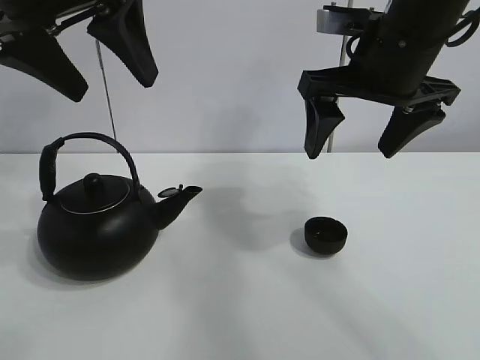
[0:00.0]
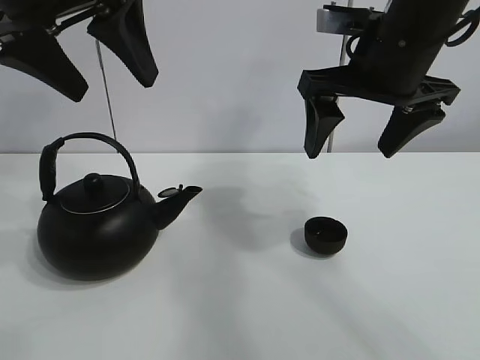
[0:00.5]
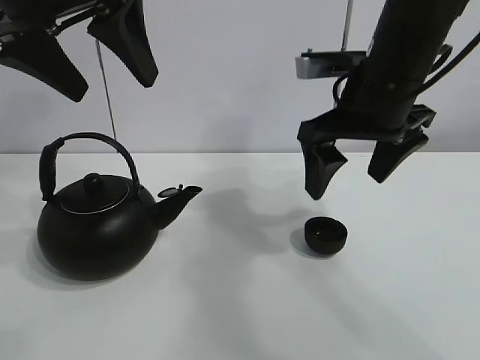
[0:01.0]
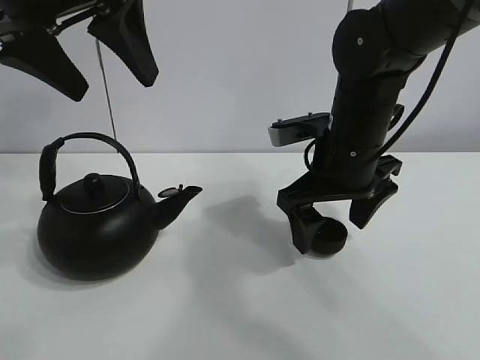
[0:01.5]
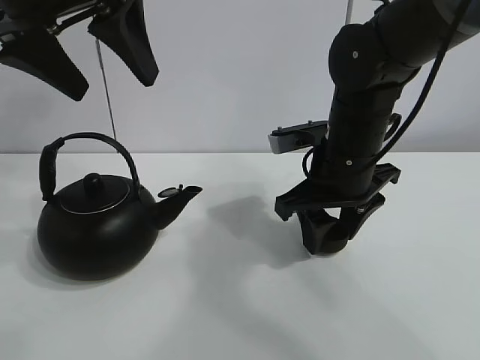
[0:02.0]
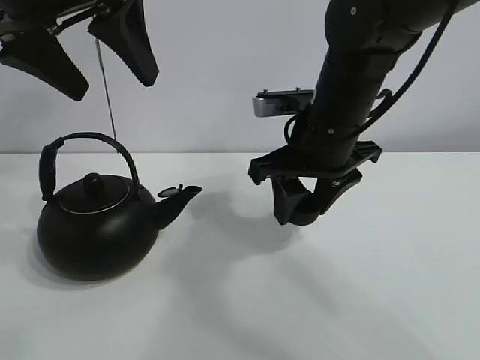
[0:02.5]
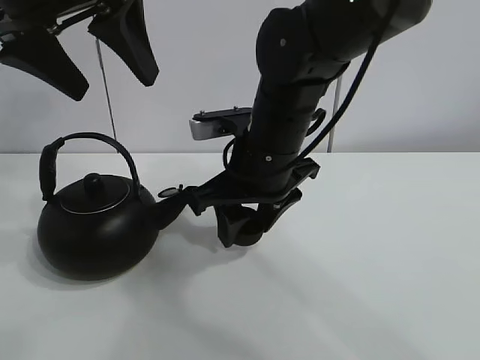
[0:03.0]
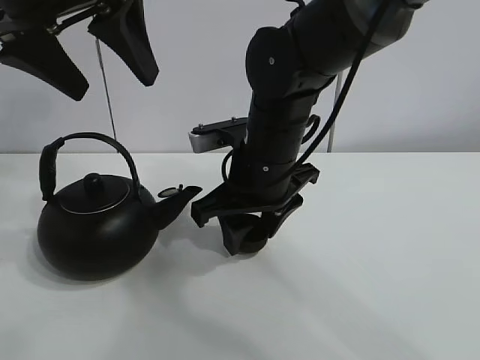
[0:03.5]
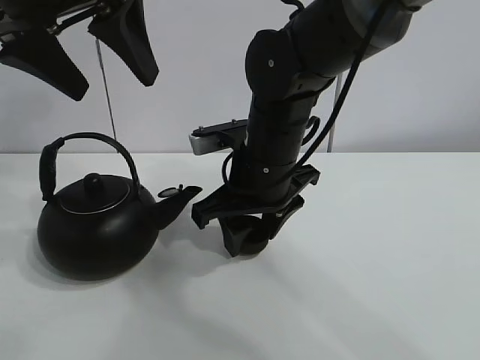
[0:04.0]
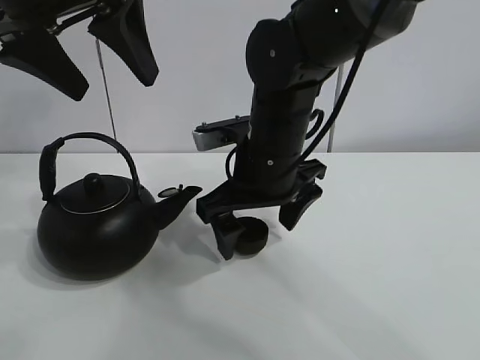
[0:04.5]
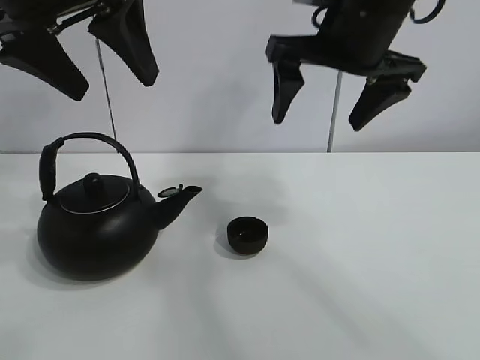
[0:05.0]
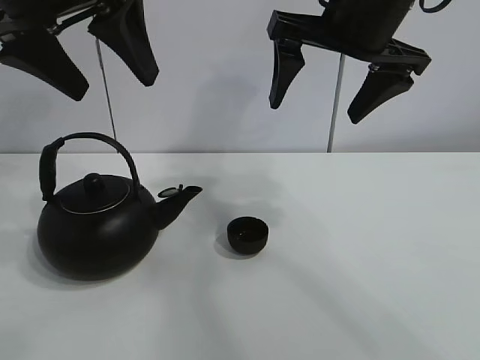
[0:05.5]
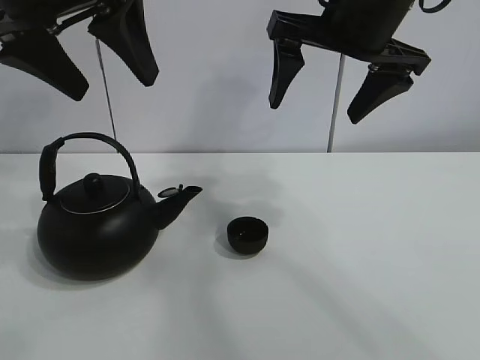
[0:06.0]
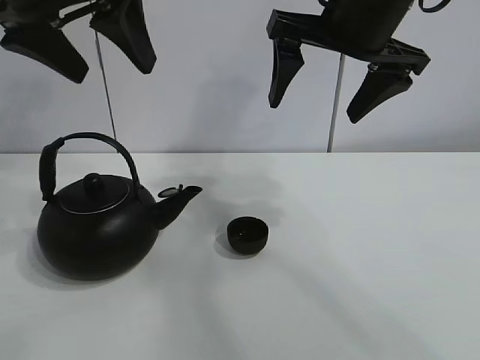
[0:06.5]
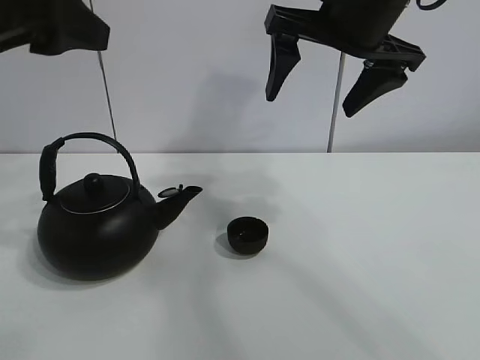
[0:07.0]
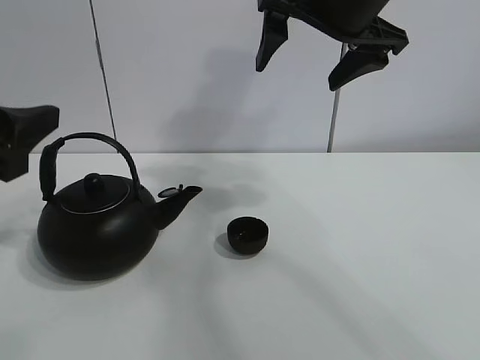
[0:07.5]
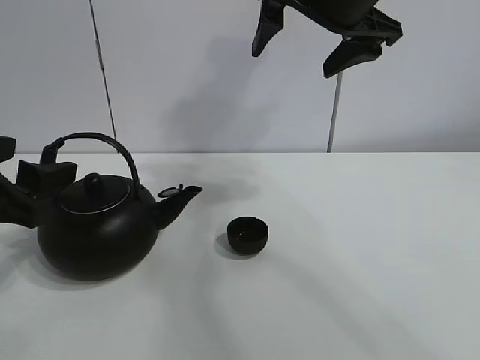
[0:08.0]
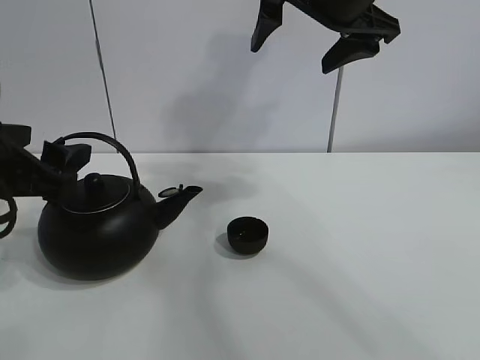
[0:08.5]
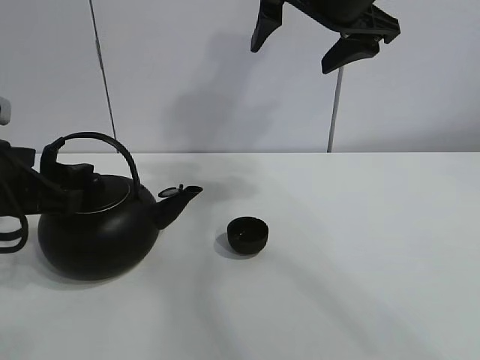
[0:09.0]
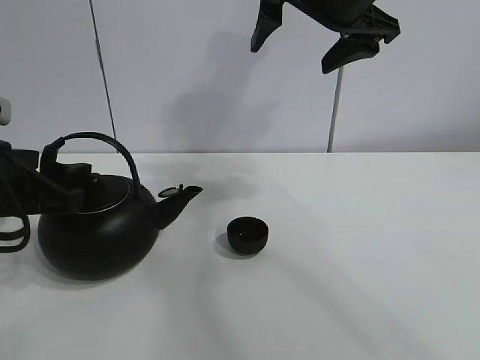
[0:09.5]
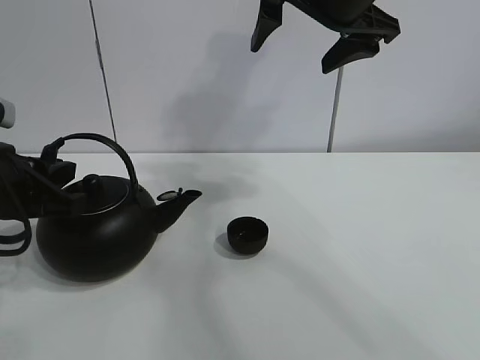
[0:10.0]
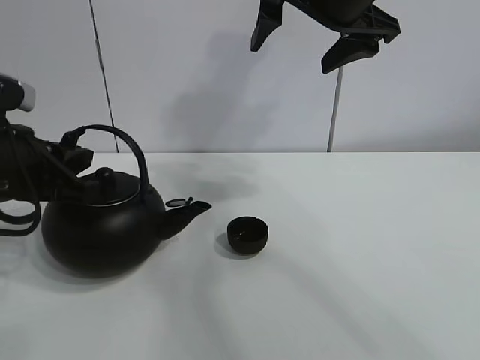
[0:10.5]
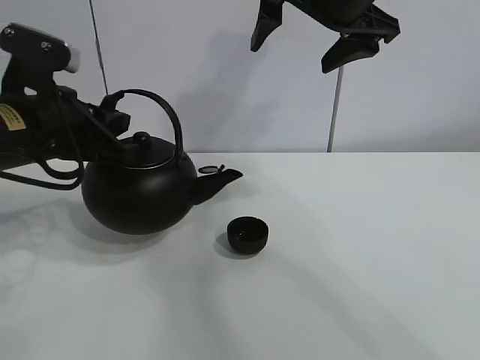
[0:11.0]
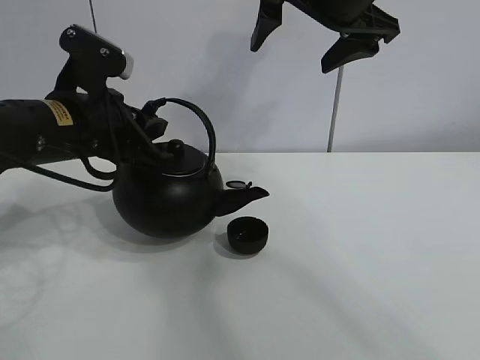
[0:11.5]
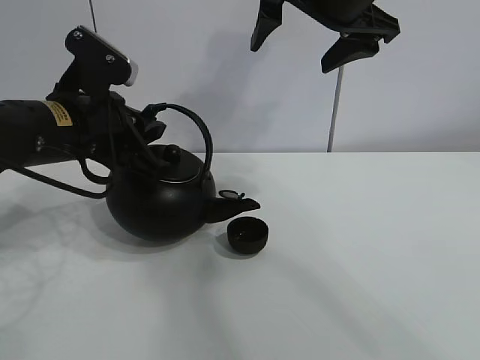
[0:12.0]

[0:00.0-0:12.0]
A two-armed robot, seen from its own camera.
Task of the whole recording: pour tea into the teacup.
Step, 0:00.0 to 0:01.5: Pick up the teacup with the right gripper.
Step, 0:02.0 to 0:04.0: Place the teacup in the center of view with the right gripper.
Step, 0:04.5 to 0:10.0: Pick up the teapot with the left gripper.
0:02.0 to 0:04.0: The right gripper heads to the left, covering roughly 10 cm.
0:04.0 to 0:06.0: The right gripper is displaced upward and to the right by roughly 20 cm, and opens its fingers.
0:06.0 to 0:08.0: The left gripper heads downward and to the left, covering about 20 cm.
0:08.0 to 0:10.0: The left gripper moves approximately 5 cm, and closes its fingers.
0:10.0 to 0:12.0: The left gripper moves to the right and forward, some 10 cm.

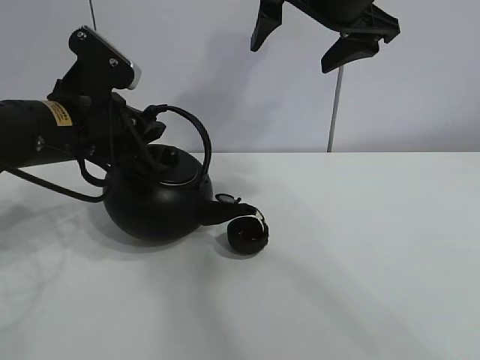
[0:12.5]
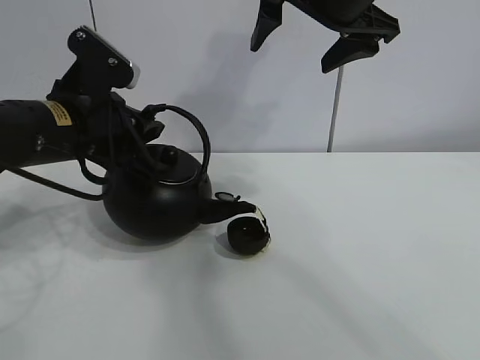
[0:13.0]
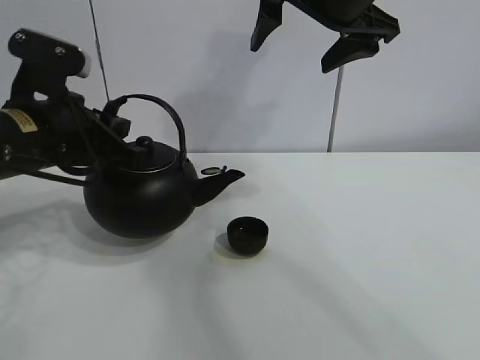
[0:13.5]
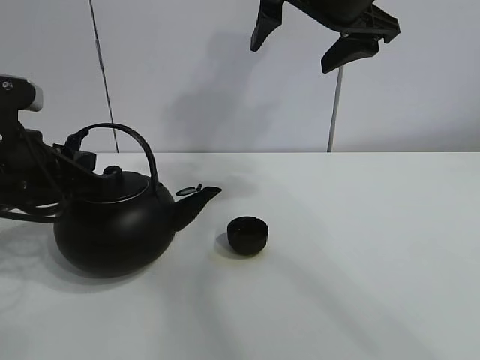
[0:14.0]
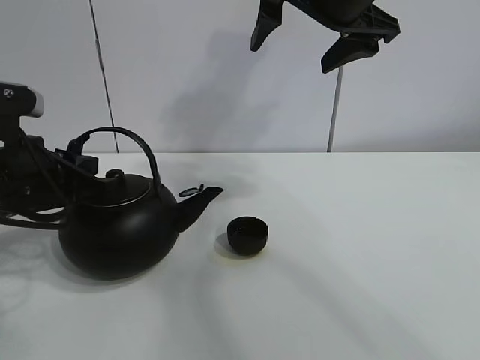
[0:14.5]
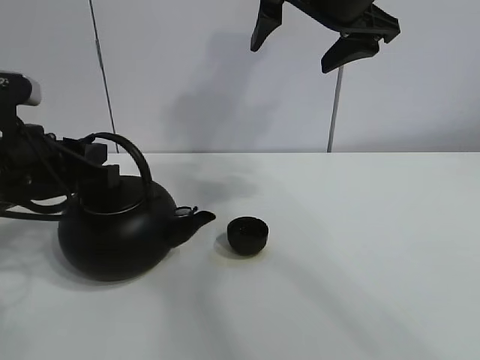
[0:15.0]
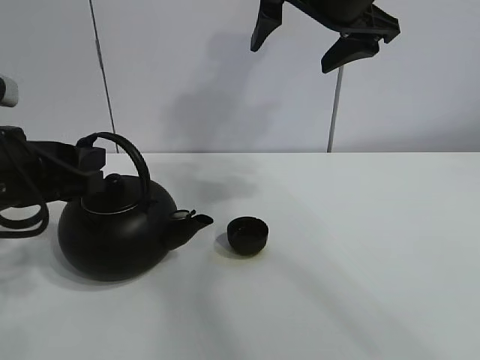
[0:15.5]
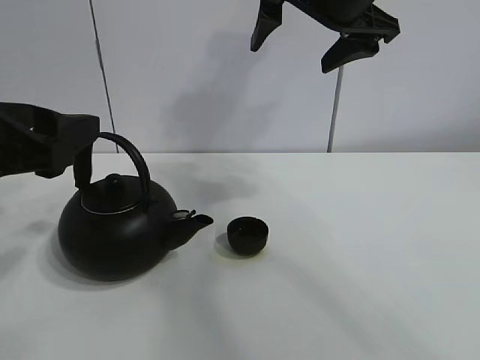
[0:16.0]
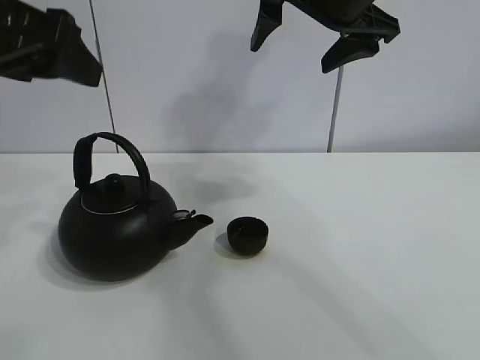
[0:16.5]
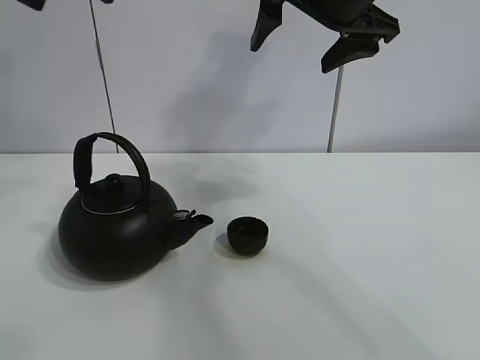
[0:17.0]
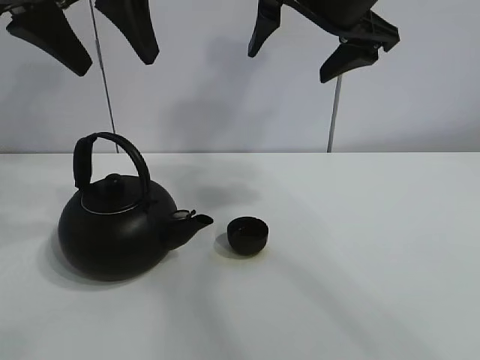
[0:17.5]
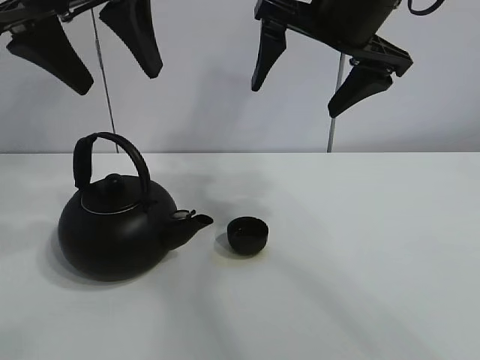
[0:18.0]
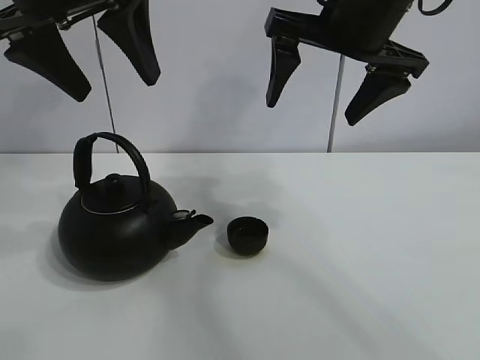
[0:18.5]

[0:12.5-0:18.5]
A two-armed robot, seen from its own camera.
Task of the whole recording: pour tea into the teacup.
0:12.5 to 0:14.5: The left gripper heads backward, covering about 5 cm.
0:14.5 to 0:16.5: The left gripper heads upward, covering some 15 cm, and opens.
0:16.5 to 0:18.5: The left gripper moves forward, approximately 5 cm.
